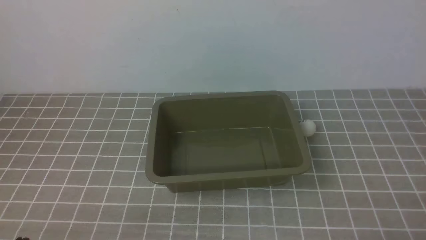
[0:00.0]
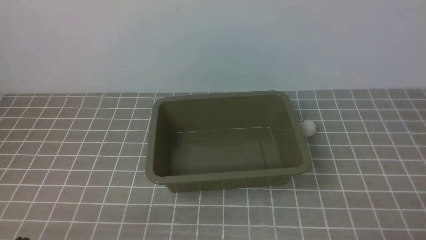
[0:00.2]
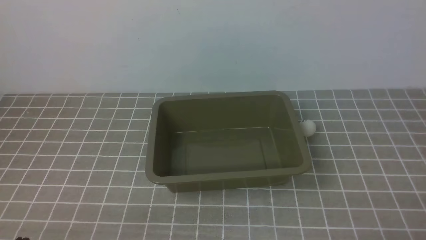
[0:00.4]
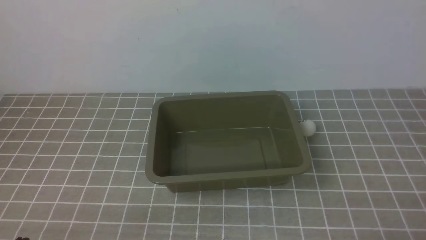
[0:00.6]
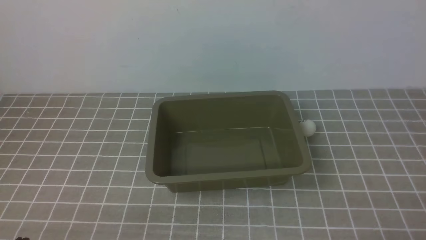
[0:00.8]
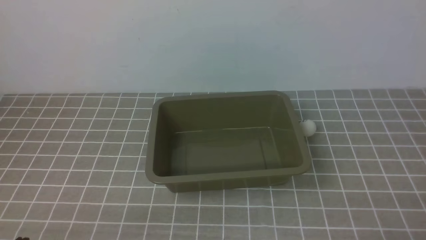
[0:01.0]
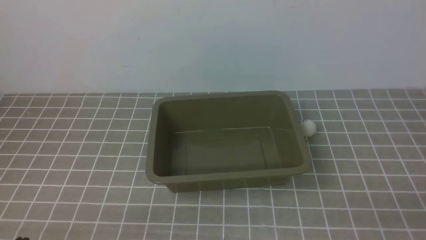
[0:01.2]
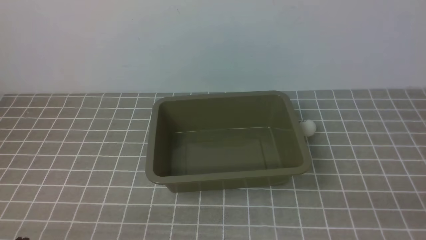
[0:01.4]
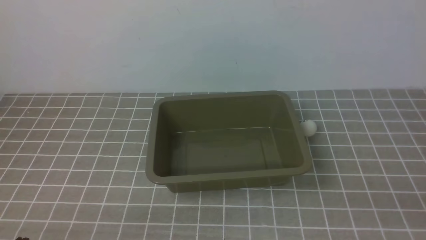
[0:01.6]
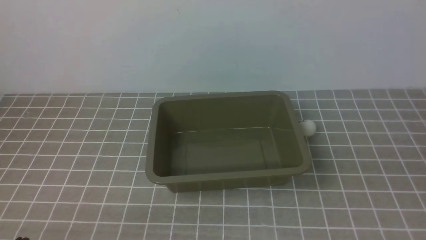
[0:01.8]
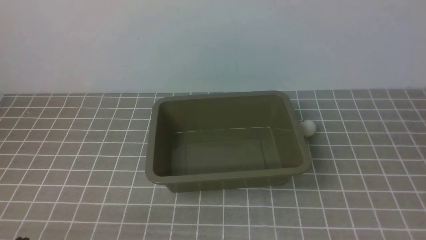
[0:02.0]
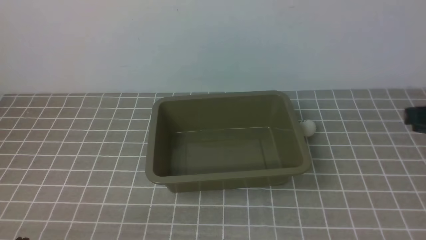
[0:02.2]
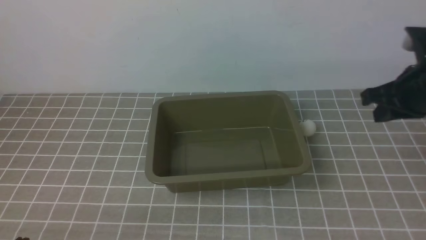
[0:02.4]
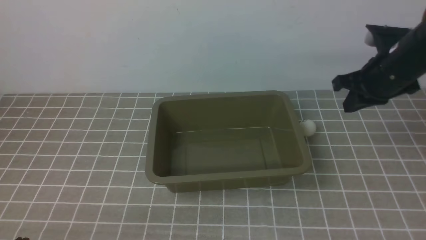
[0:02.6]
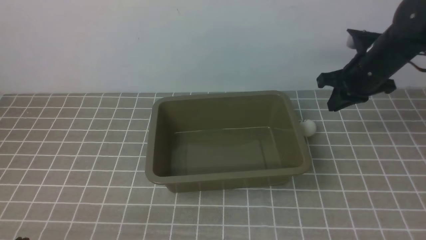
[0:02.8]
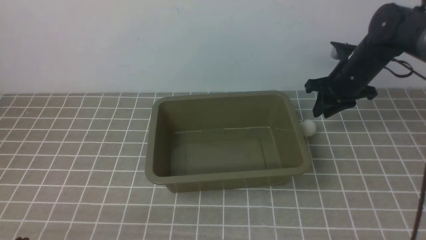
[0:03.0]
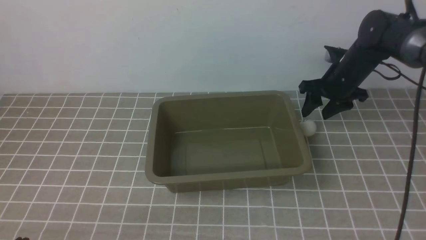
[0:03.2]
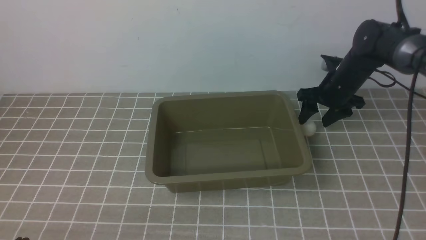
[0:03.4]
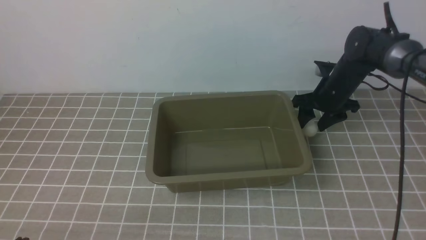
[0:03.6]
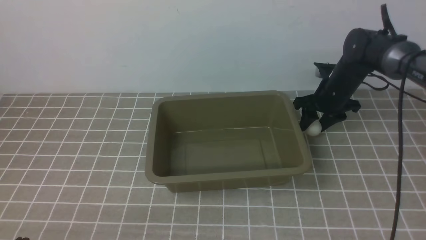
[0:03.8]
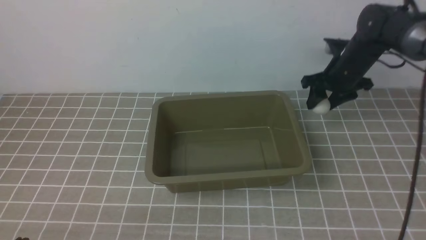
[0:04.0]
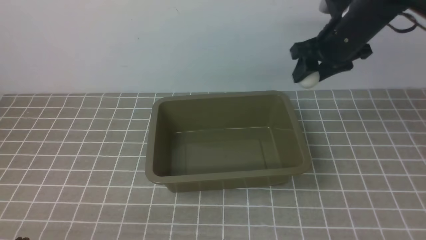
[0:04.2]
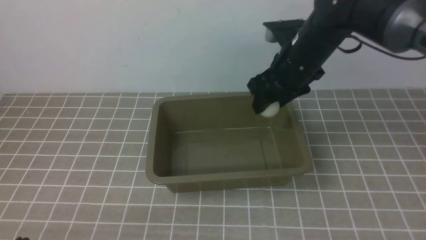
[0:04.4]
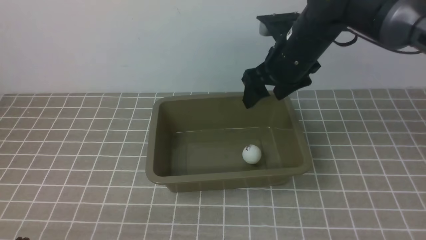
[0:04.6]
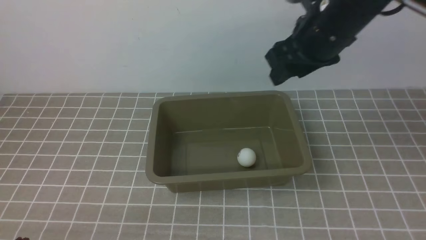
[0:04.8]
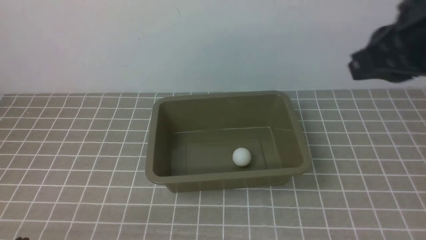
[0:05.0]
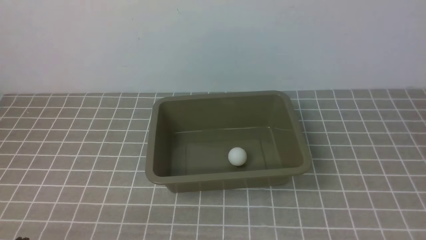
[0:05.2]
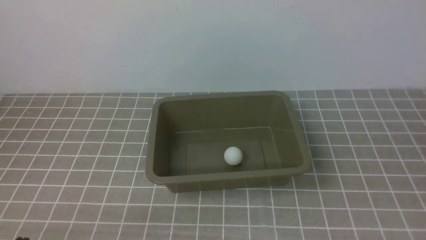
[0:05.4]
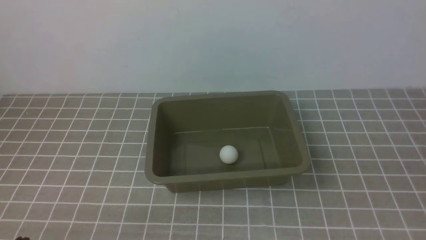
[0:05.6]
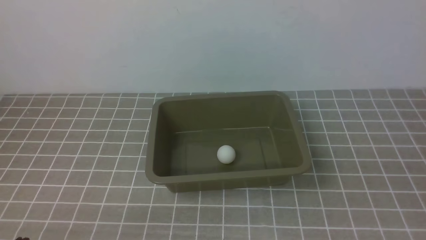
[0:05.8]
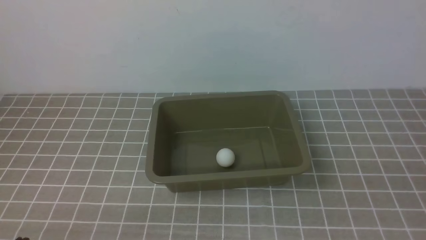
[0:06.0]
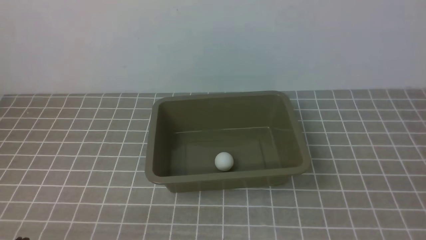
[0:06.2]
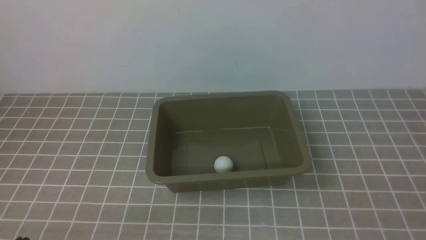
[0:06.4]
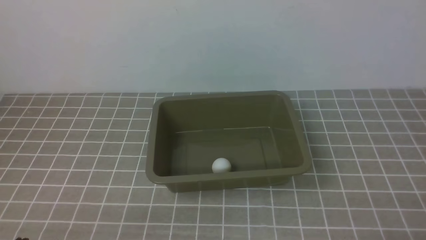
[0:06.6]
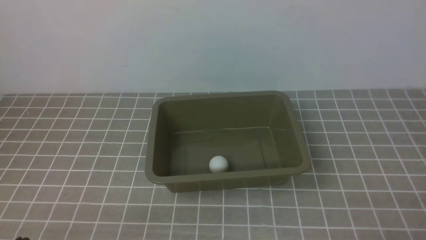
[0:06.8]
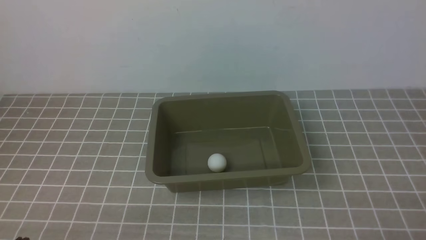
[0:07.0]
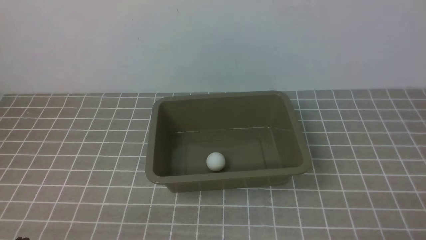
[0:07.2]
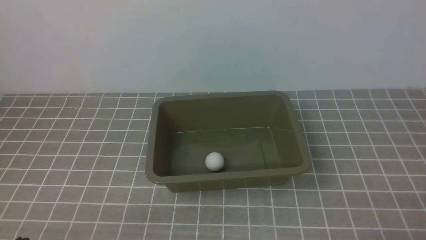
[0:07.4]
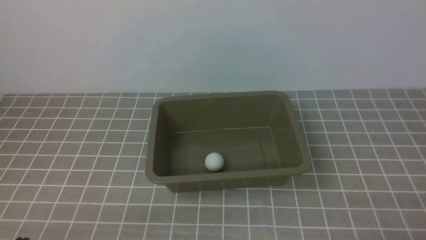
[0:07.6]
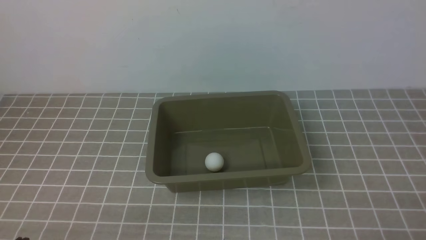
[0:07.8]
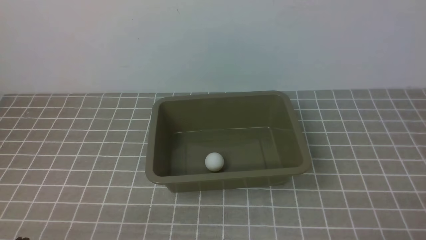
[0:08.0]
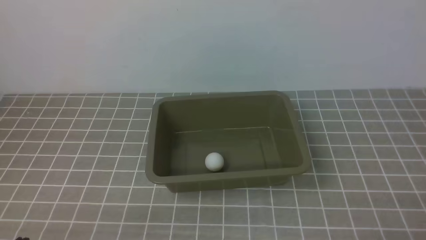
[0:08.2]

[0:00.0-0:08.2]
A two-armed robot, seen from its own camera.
Step, 0:00.0 to 0:04.0: use the right arm to clamp the table tennis ball closest to it.
Step, 0:04.2 to 0:04.6: use the right arm to put the table tennis ball into the box.
0:01.6 to 0:03.2: The right gripper goes approximately 40 cm forward, and opens.
0:03.2 to 0:05.0: The right gripper travels backward and upward by roughly 35 cm, and closes.
0:05.0 to 0:06.6: The right gripper heads downward, backward and to the right, covering some 30 cm.
0:06.6 to 0:08.2: The two grippers keep their place.
